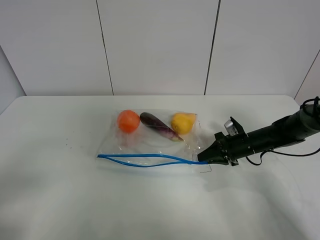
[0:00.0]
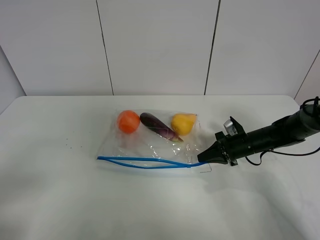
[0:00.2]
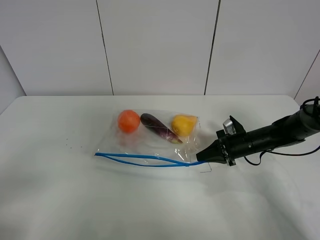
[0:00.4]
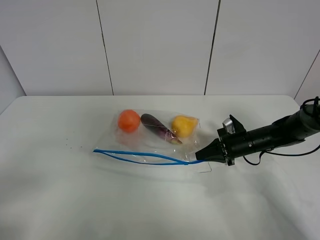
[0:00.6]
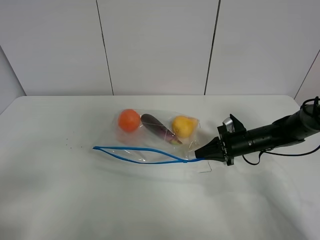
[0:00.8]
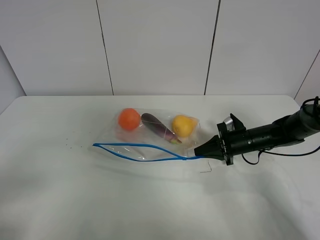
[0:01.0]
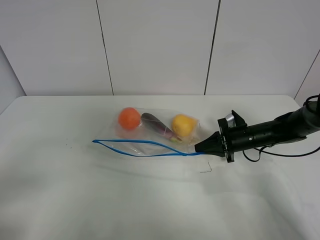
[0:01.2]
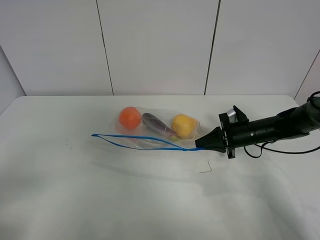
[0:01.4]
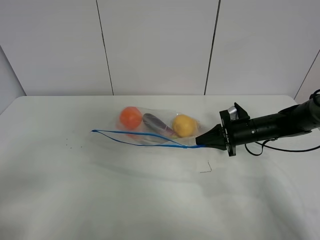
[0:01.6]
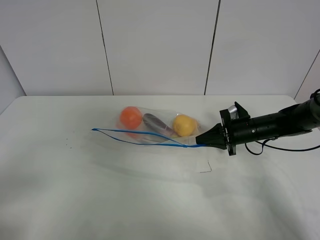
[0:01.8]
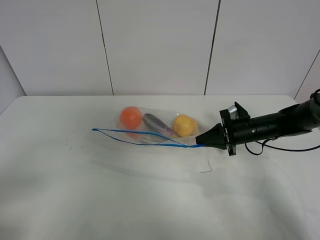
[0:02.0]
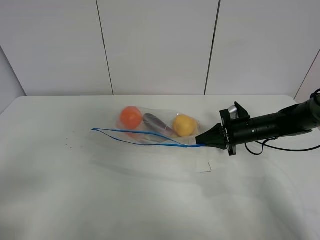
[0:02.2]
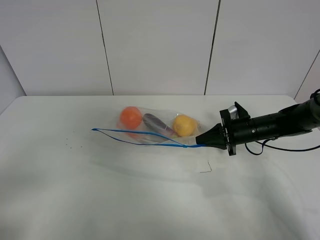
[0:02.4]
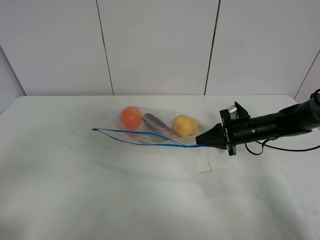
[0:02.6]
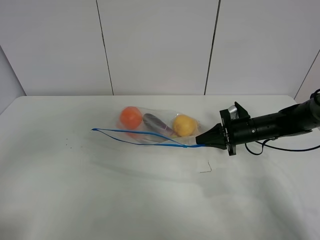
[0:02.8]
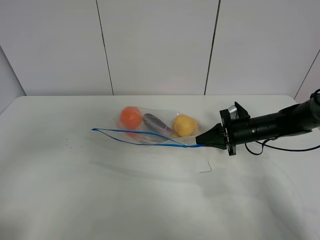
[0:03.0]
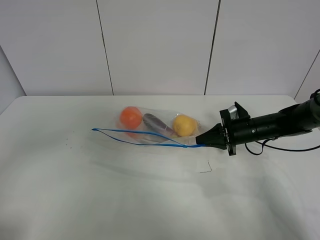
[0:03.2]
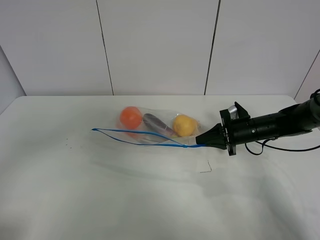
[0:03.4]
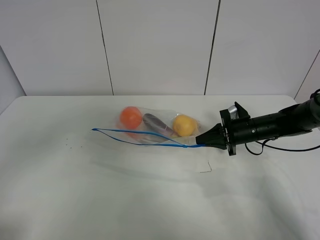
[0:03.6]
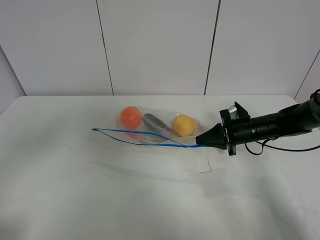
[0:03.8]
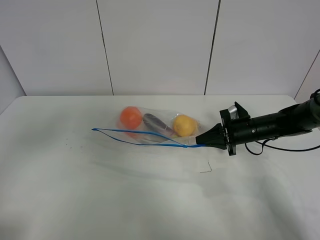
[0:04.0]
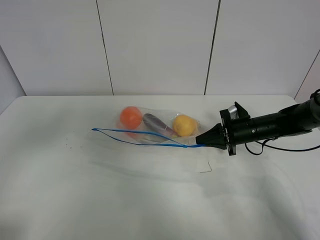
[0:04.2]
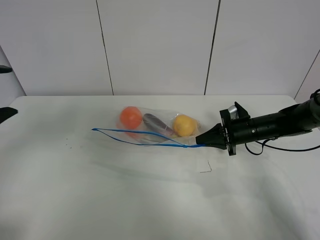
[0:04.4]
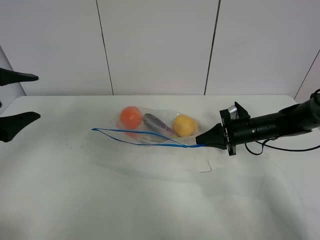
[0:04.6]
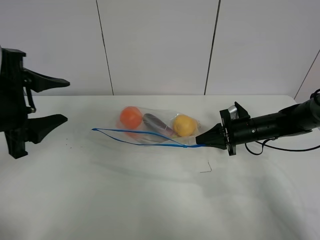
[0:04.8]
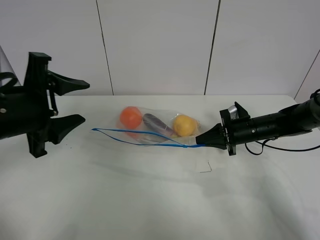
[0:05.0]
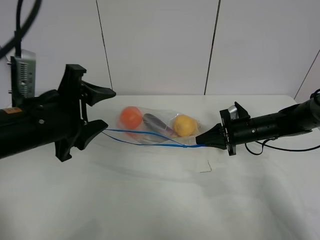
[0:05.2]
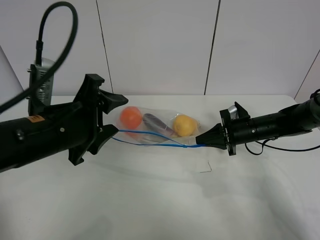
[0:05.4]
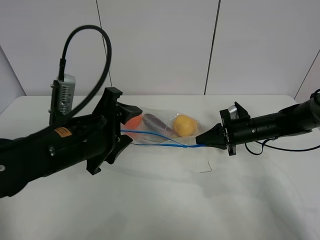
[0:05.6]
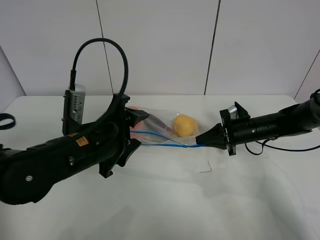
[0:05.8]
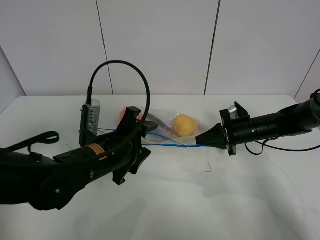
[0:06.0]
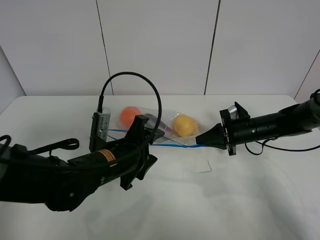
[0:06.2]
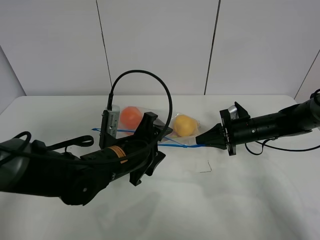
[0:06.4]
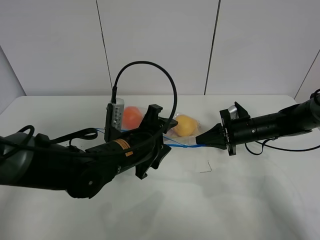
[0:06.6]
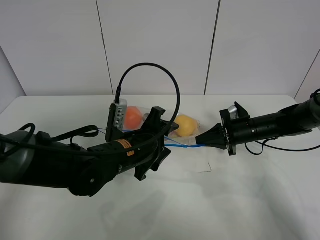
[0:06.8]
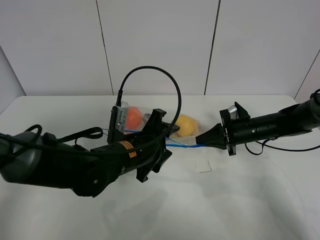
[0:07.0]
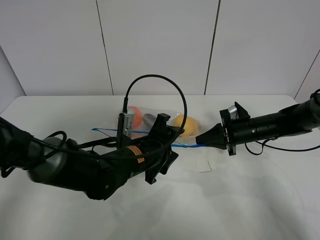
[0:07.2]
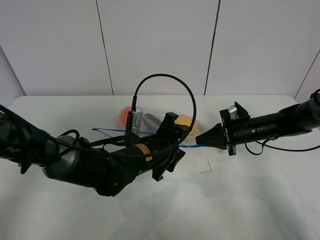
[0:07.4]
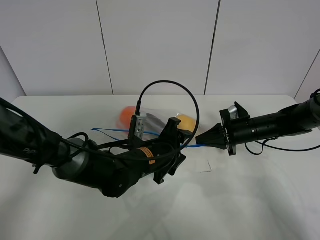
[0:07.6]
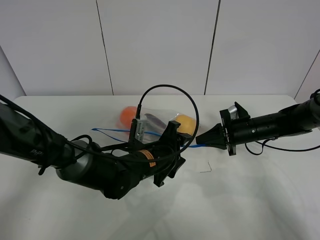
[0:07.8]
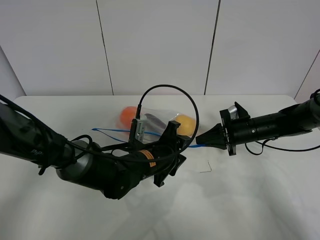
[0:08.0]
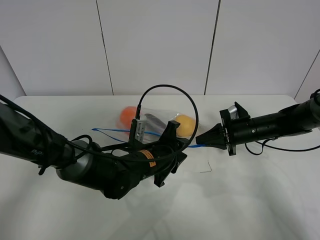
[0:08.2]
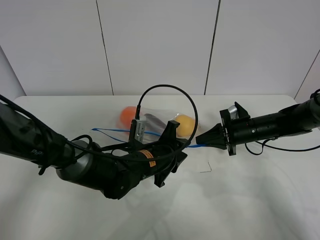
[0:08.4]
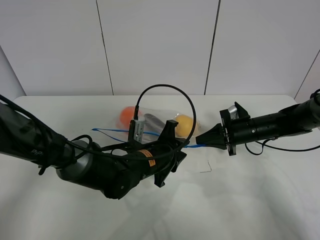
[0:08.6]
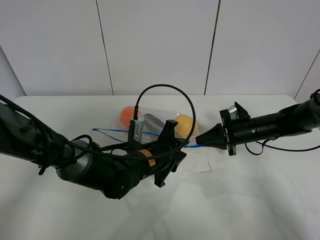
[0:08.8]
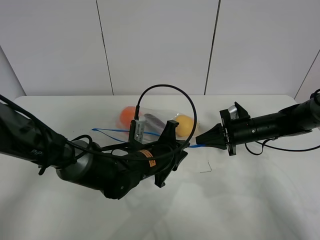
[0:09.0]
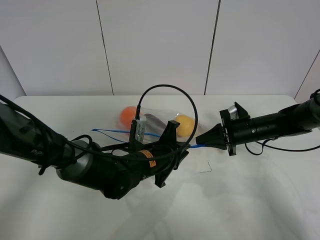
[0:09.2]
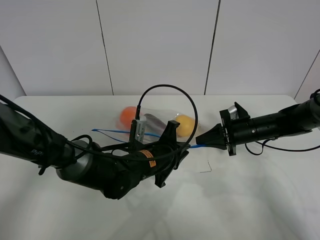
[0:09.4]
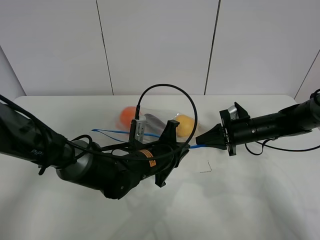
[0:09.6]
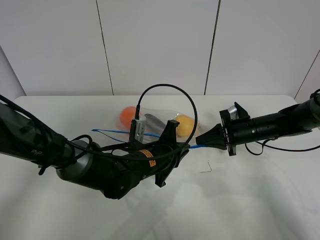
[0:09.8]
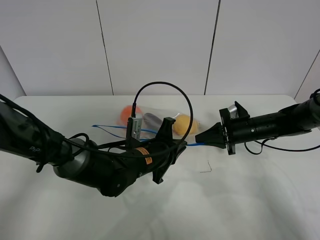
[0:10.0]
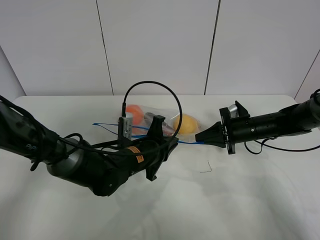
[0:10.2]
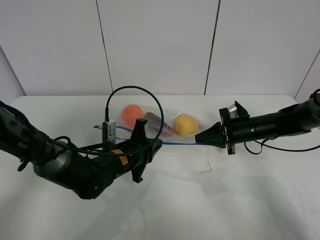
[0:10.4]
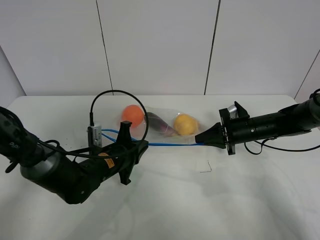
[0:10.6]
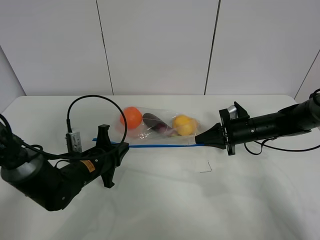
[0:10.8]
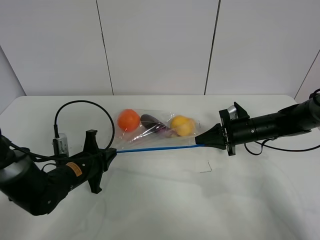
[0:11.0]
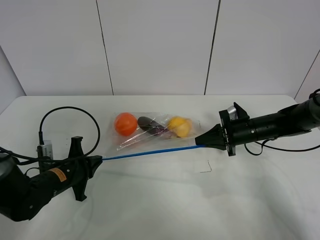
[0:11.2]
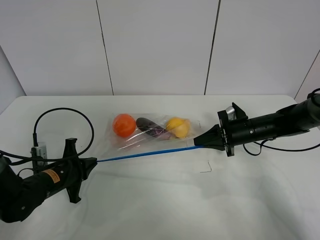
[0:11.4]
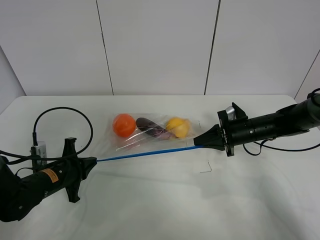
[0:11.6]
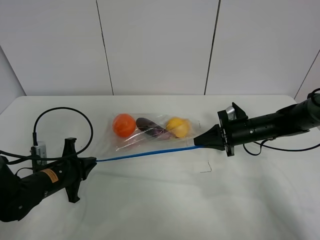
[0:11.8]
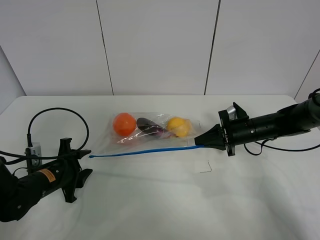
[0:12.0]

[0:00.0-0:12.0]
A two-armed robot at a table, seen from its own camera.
Step, 0:00.4 to 0:02.4: Lift the fruit bag with your right gripper.
0:00.0 to 0:01.6: The grippers move only a little.
0:01.6 to 0:03.0: The left gripper heads upward, covering about 5 cm.
0:04.4 to 0:06.0: The left gripper travels to the right and downward by about 25 cm.
0:06.0 to 0:07.6: The left gripper is displaced to the right and downward by some 10 cm.
0:07.6 to 0:09.0: The left gripper closes.
0:09.0 to 0:10.4: The left gripper travels to the left by about 5 cm.
0:10.4 to 0:12.0: The left gripper shifts approximately 15 cm to the left, and opens its fingers.

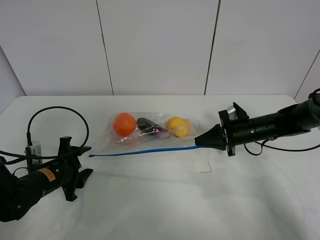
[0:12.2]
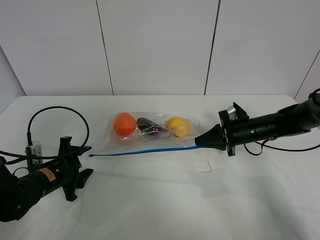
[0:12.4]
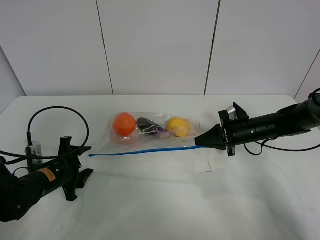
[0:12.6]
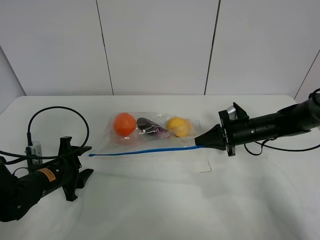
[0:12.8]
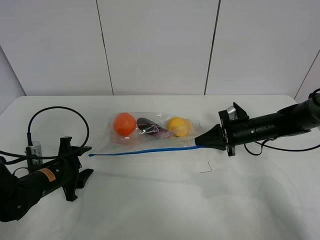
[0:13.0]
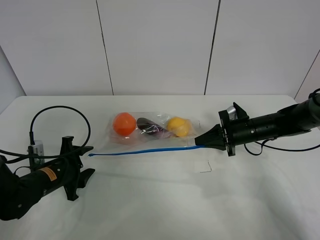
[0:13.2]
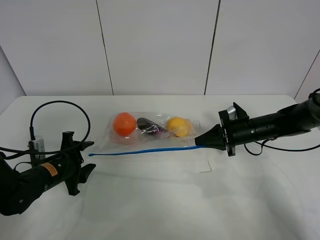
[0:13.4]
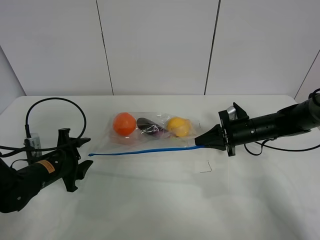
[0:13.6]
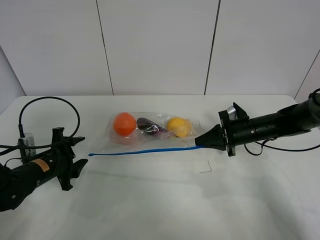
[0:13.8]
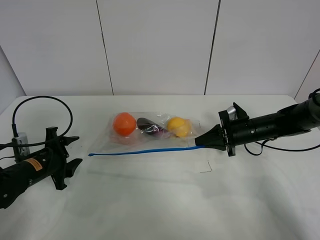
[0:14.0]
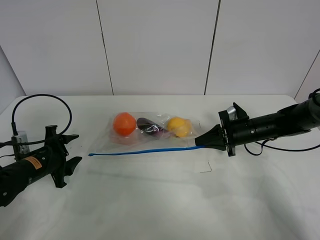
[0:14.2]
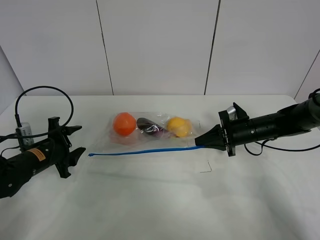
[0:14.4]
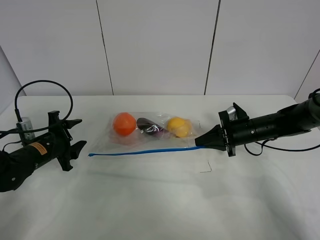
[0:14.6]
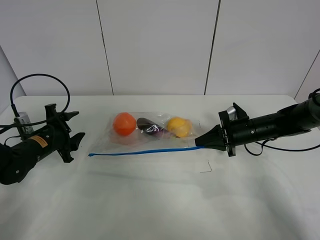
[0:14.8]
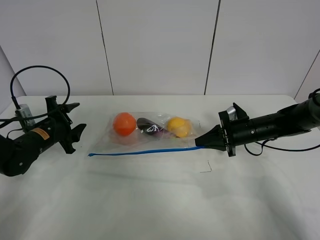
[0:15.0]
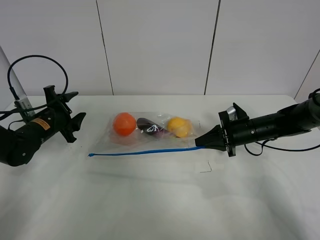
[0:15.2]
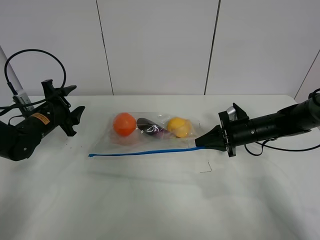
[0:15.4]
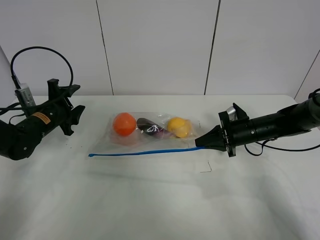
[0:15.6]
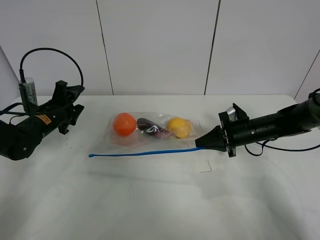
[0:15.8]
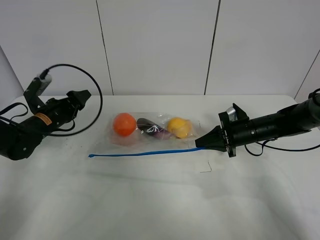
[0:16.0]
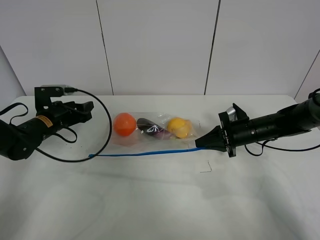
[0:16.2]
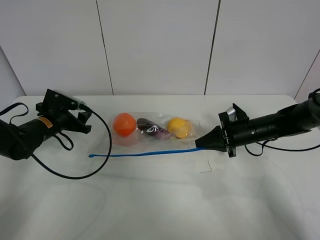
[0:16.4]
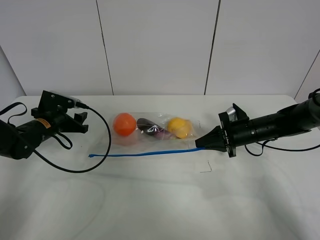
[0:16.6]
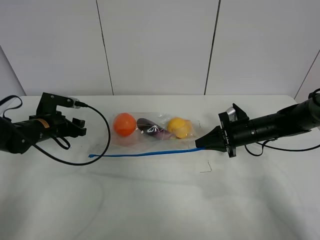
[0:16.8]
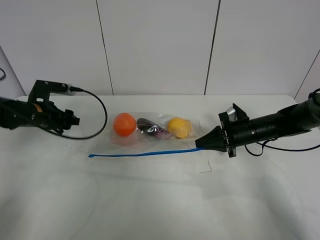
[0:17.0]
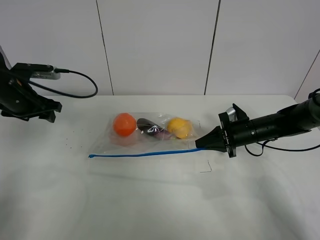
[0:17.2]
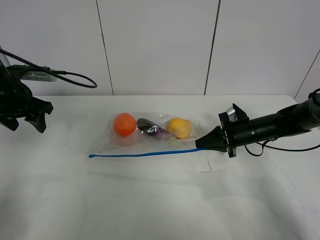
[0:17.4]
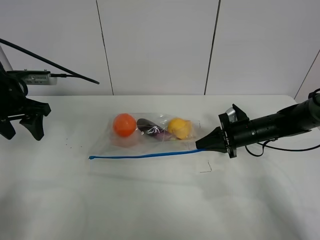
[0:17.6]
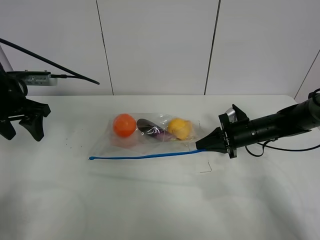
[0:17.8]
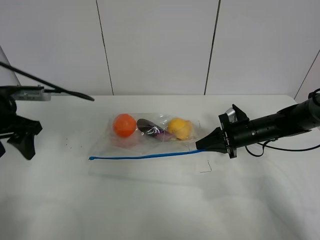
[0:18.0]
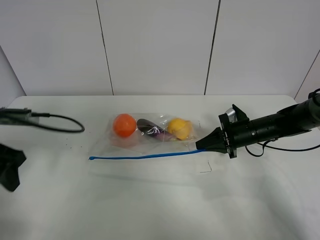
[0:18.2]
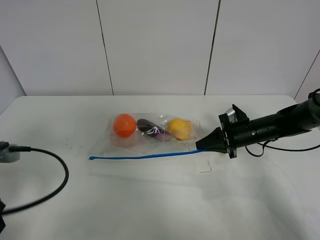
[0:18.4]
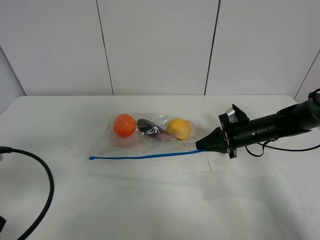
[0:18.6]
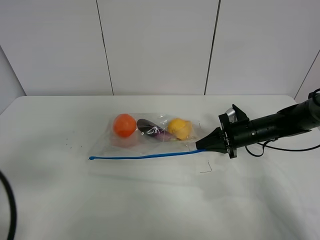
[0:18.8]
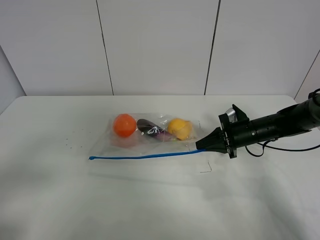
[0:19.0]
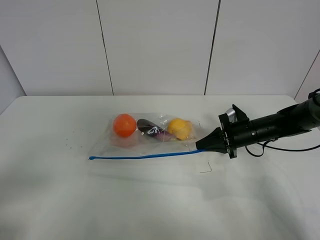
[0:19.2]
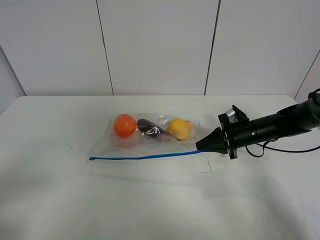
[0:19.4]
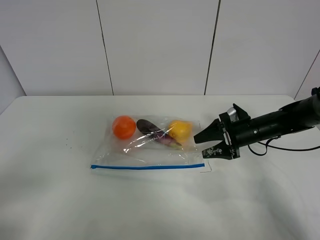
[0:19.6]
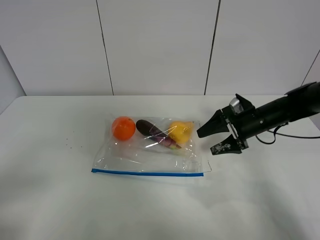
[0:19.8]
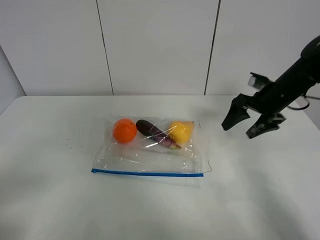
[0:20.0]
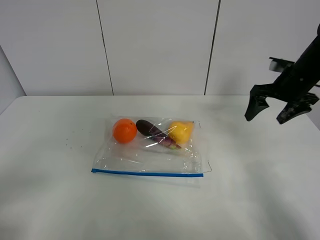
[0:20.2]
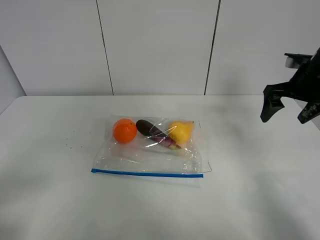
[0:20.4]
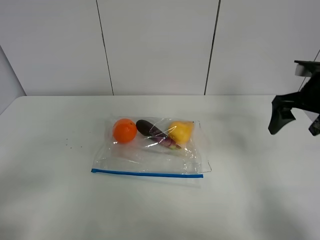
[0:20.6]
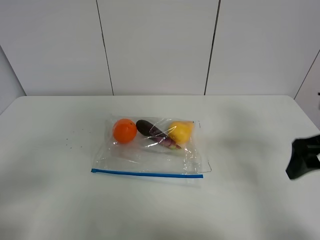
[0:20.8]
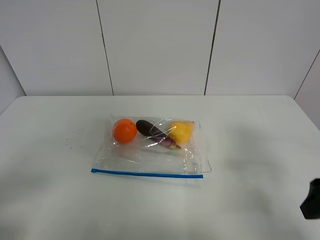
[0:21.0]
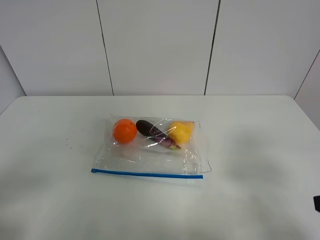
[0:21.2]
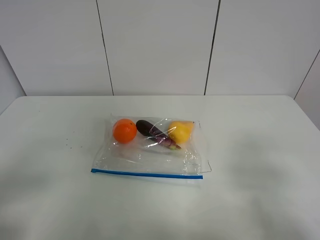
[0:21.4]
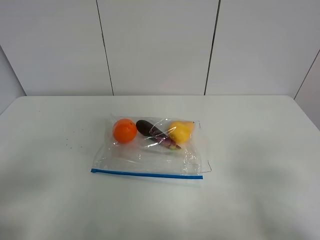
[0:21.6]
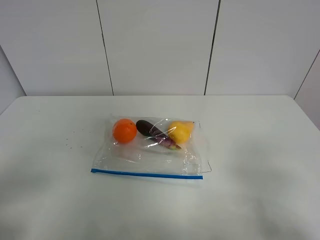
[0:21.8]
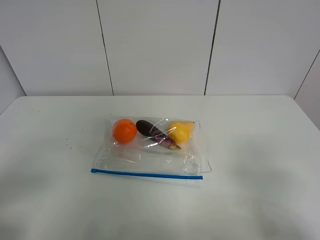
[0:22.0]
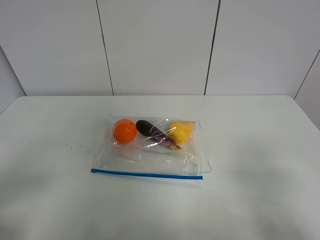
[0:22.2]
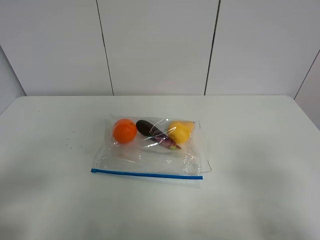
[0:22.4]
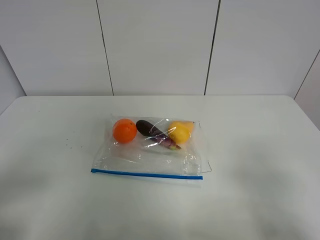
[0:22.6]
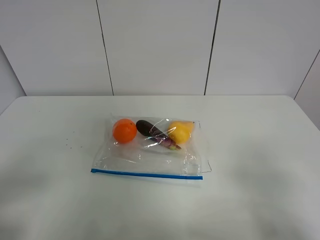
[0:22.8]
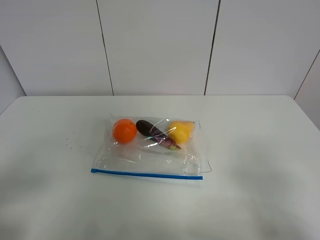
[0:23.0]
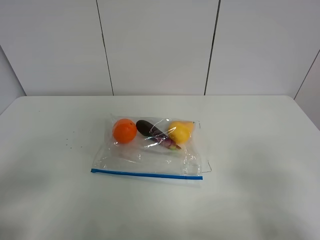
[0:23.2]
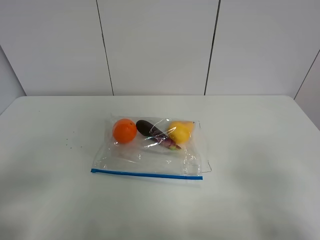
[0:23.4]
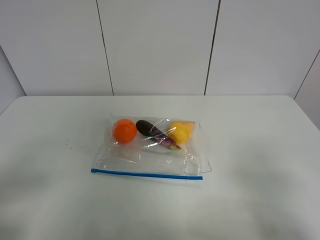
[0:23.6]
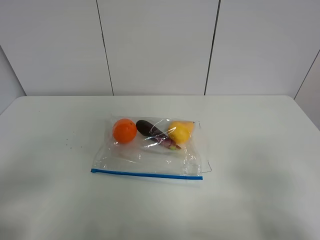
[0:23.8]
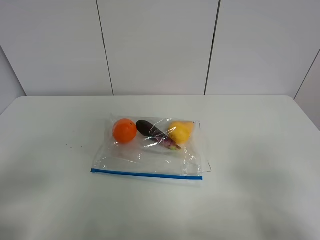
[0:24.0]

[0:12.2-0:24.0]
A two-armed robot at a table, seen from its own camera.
0:12.2 to 0:13.6: There are only small adjustments of the grippers.
0:13.6 to 0:15.2: The left gripper is displaced forward and upward by some 10 cm.
0:16.6 to 0:18.2: The left gripper is displaced backward and upward by some 20 cm.
0:18.2 to 0:19.6: The right gripper opens its fingers, while the left gripper heads backward, covering approximately 20 cm.
0:19.6 to 0:21.0: The right gripper goes approximately 25 cm backward and upward.
0:21.0 to 0:22.6: The right gripper goes approximately 10 cm backward.
0:22.6 to 0:24.0: Both grippers stay put.
